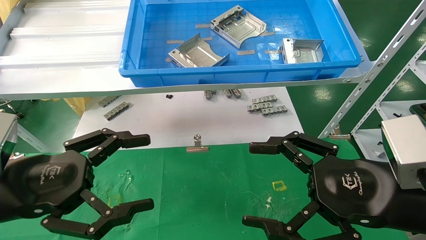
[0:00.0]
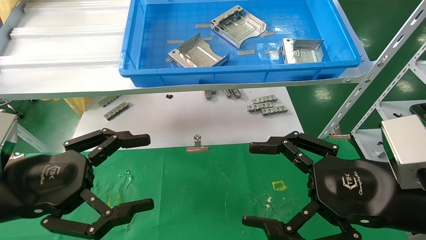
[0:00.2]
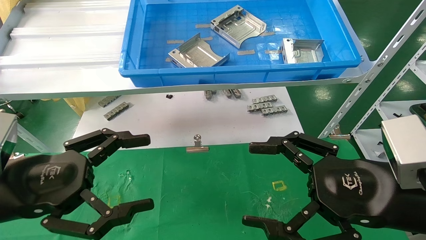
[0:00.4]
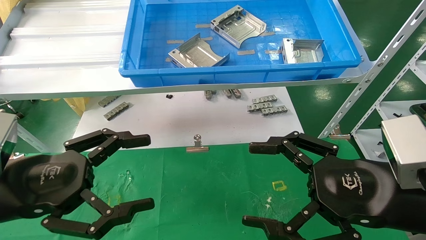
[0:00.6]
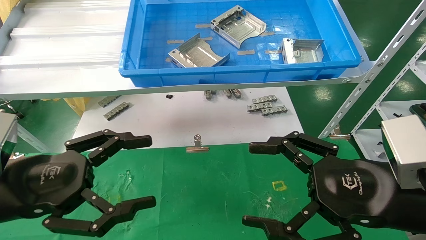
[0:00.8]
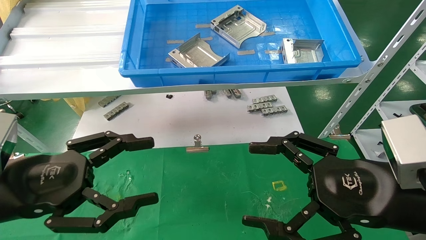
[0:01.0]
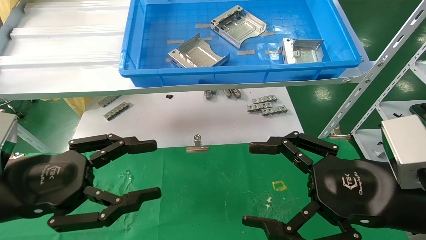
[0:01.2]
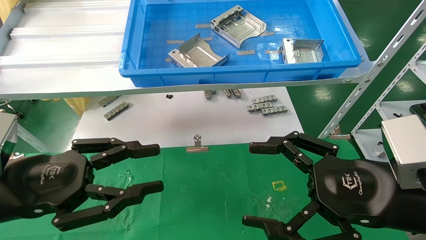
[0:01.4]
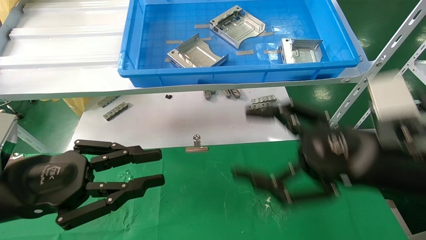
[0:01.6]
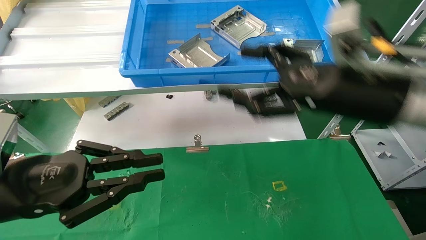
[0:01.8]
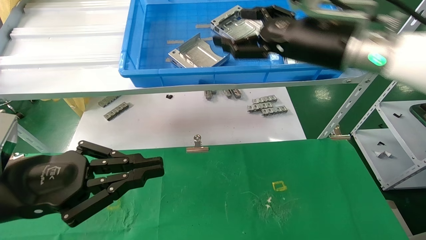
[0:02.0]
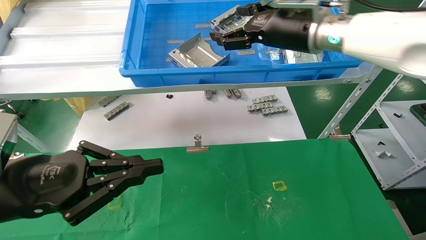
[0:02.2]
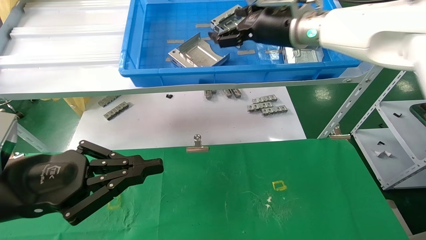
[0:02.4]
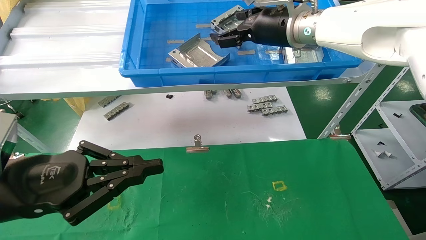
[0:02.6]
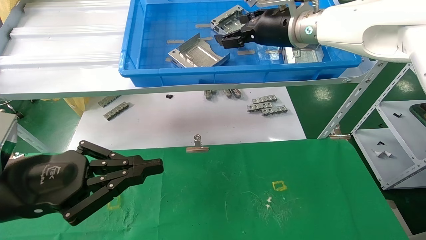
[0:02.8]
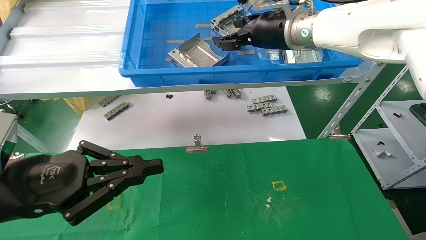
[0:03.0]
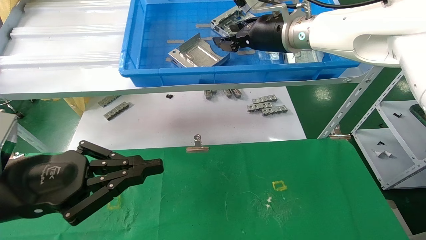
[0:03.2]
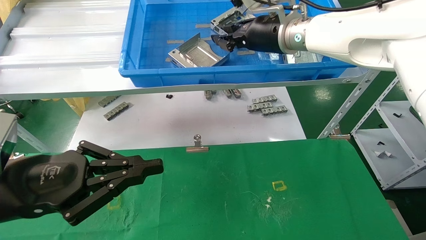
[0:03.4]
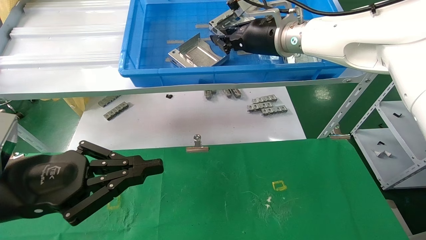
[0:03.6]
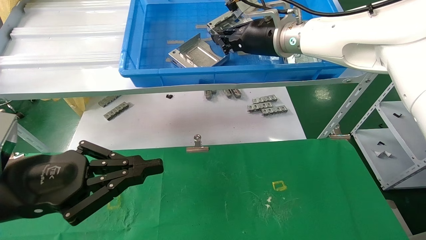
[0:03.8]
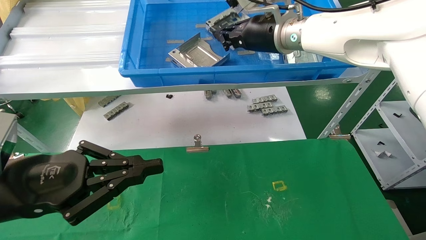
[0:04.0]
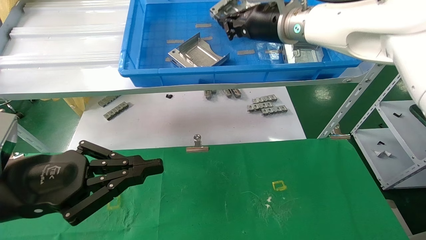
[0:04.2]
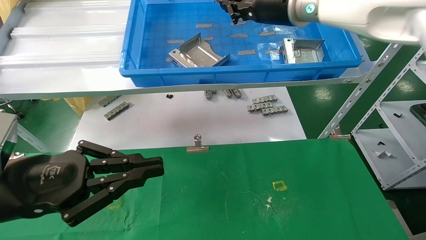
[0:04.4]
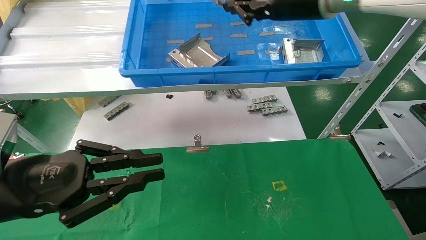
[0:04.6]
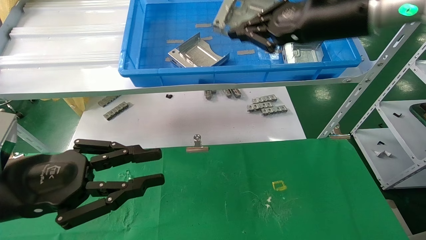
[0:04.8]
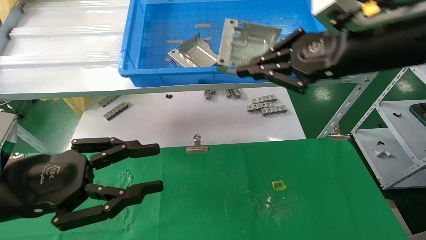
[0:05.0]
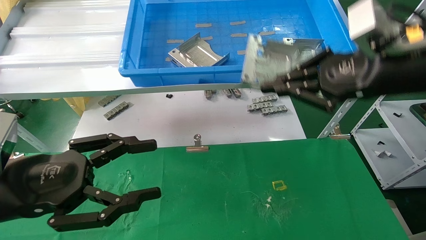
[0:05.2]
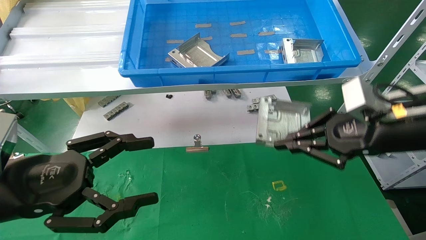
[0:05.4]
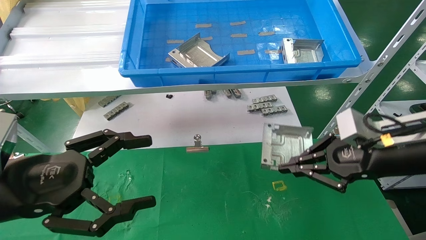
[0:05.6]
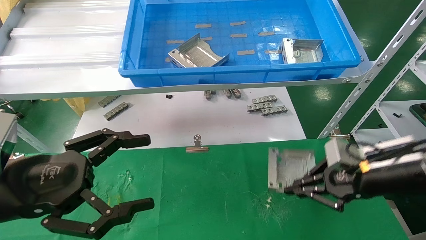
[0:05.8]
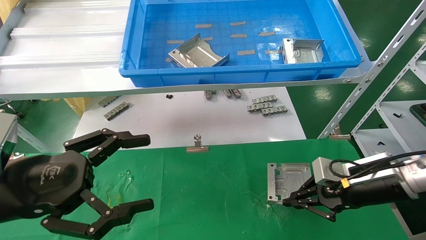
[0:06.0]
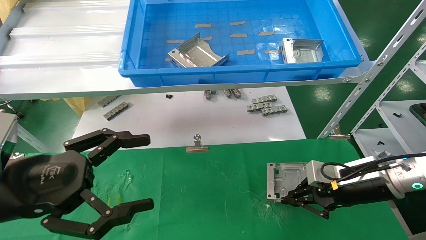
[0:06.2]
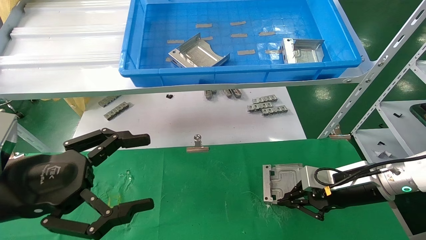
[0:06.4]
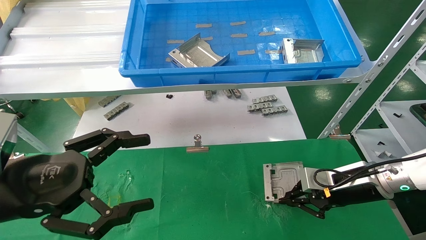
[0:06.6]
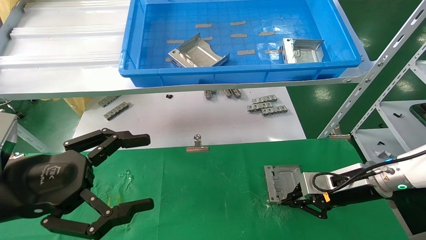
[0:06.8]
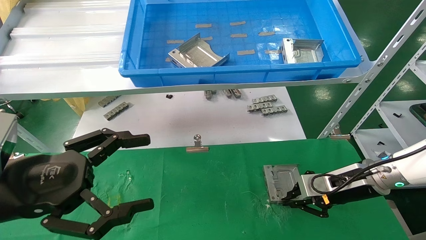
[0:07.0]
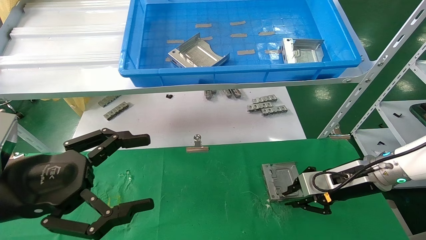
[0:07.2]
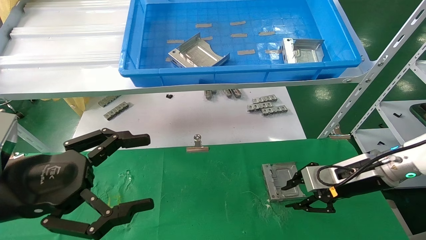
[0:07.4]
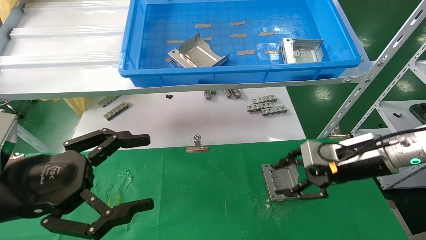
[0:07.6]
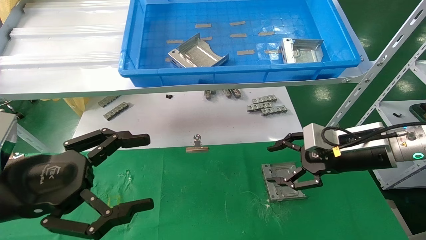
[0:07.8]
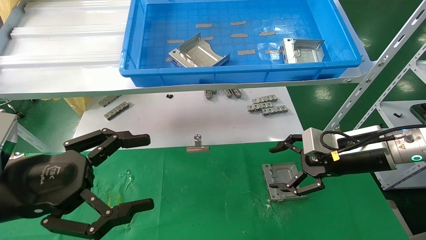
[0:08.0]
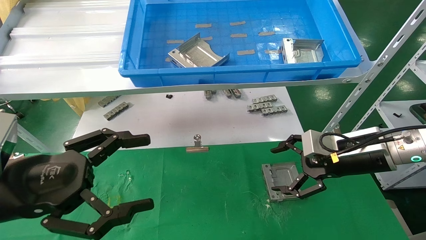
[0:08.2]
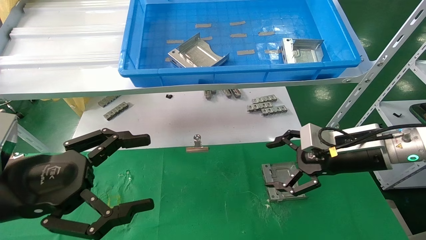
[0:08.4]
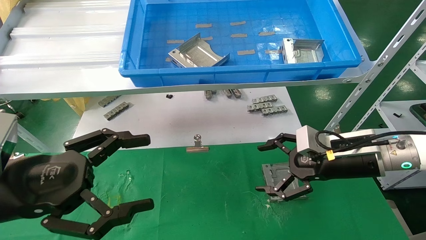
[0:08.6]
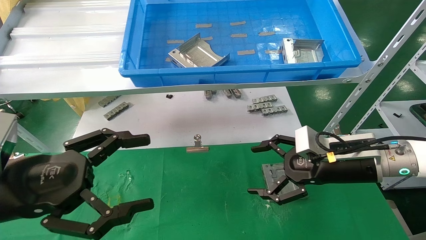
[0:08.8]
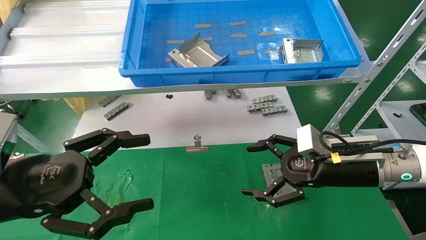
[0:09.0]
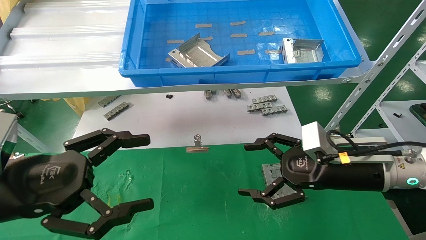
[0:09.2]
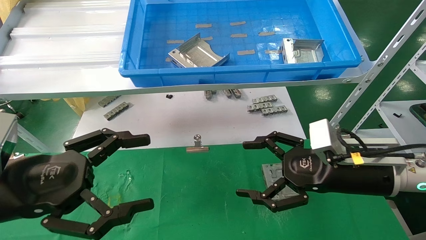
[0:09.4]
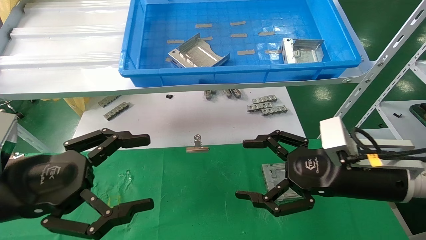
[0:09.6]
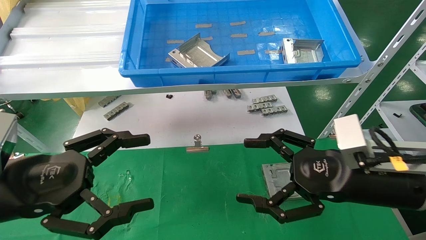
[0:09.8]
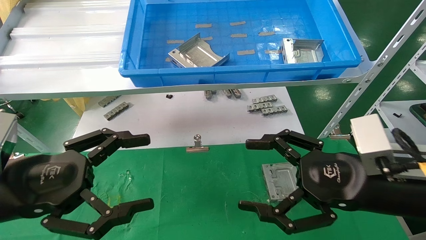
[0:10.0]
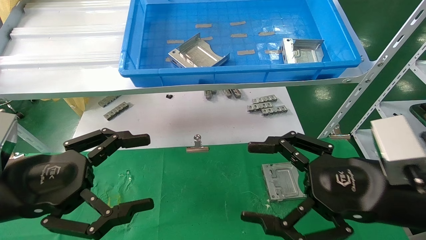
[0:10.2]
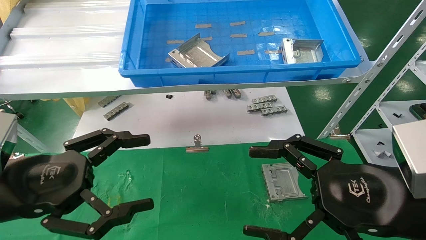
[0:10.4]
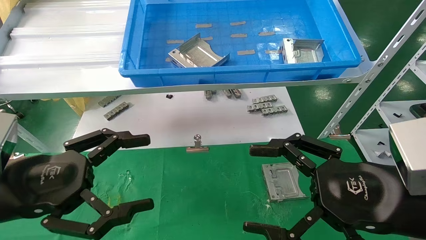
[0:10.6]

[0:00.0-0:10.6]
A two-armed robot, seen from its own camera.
Task of the whole recording: use the mechanical arm to pick up the parts and place them on the table.
Step, 0:01.8 to 0:04.4: Pick up the hard drive bracket from the feeding area.
Step, 0:04.6 to 0:07.6: Place the hard drive bracket into the box.
0:00.0 to 0:01.6: The right gripper shifts by approximately 5 cm, while the left gripper closes its fingers.
0:01.6 to 0:03.0: The left gripper closes up. The right gripper shifts approximately 25 cm forward, upward and to the left.
0:03.0 to 0:04.6: The right gripper heads backward, covering approximately 5 cm, and closes.
0:04.6 to 0:06.0: The right gripper moves downward and to the right, some 30 cm, while the left gripper opens.
0:06.0 to 0:07.6: The right gripper opens its fingers.
0:07.6 to 0:09.0: The right gripper shifts by approximately 5 cm, and opens its fingers.
0:09.0 to 0:10.6: The right gripper moves backward, about 15 cm.

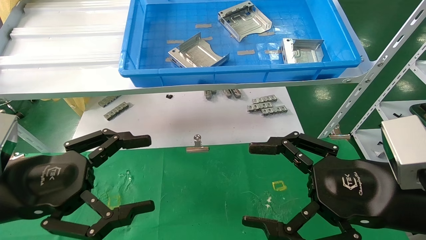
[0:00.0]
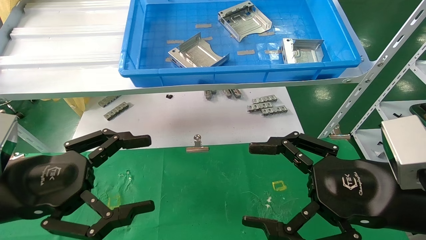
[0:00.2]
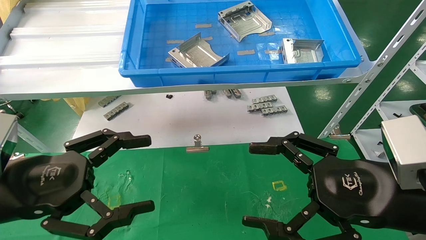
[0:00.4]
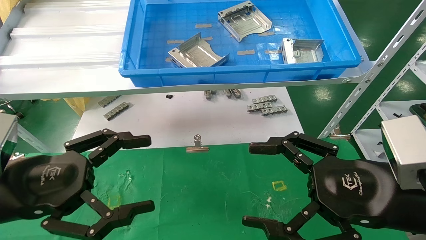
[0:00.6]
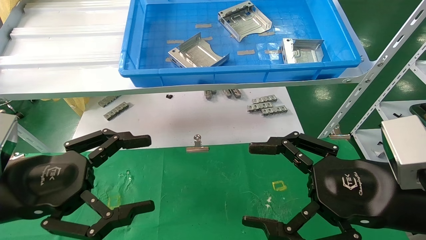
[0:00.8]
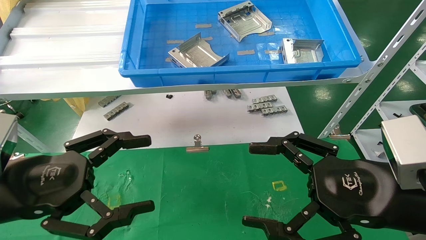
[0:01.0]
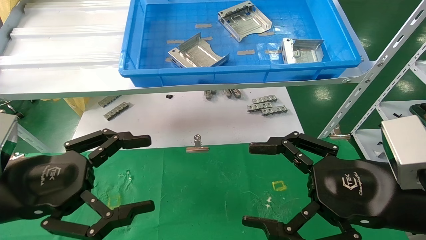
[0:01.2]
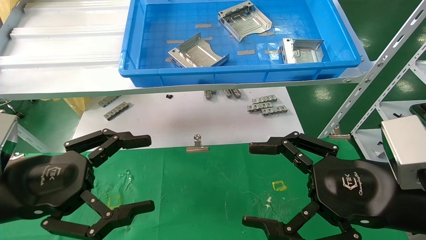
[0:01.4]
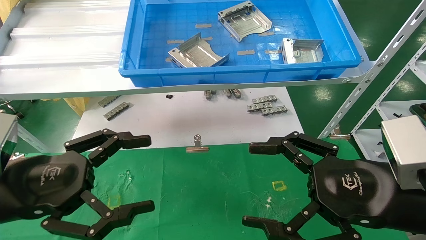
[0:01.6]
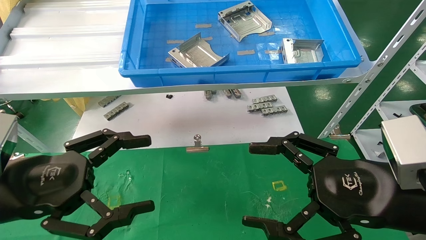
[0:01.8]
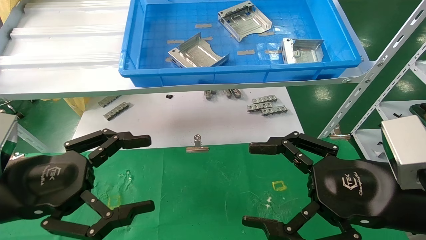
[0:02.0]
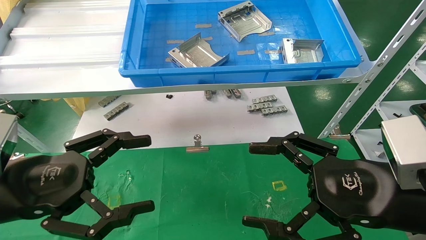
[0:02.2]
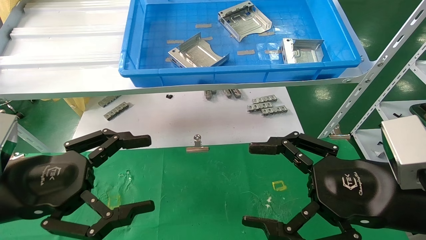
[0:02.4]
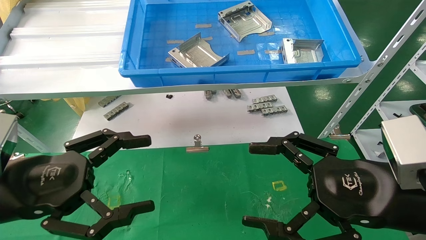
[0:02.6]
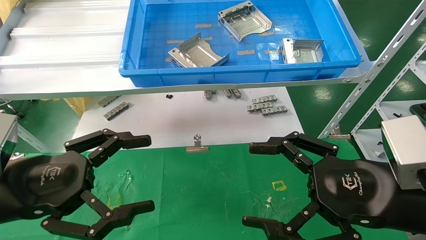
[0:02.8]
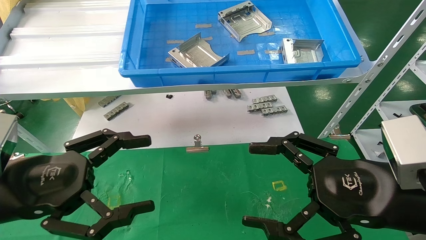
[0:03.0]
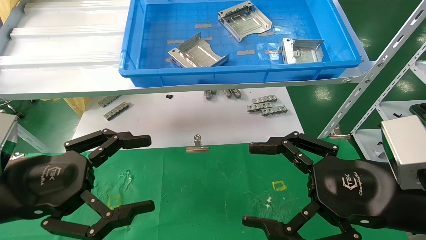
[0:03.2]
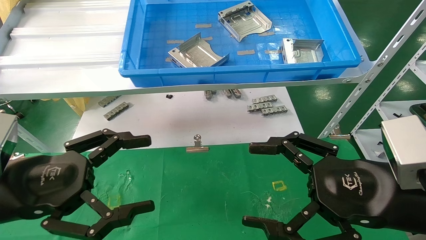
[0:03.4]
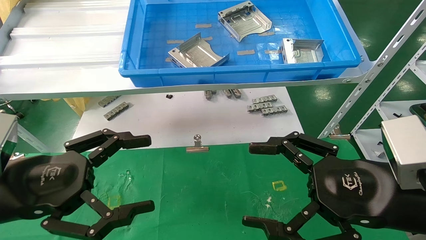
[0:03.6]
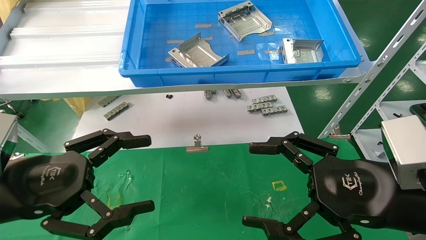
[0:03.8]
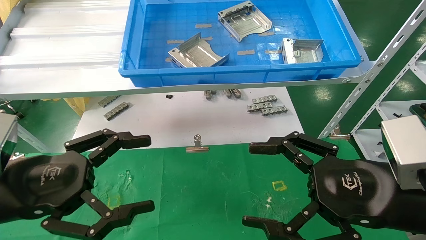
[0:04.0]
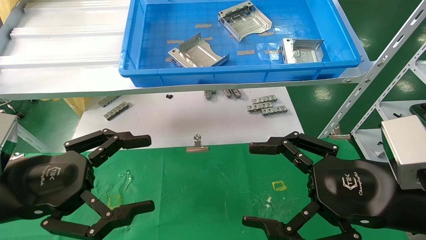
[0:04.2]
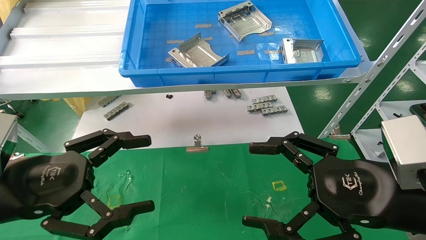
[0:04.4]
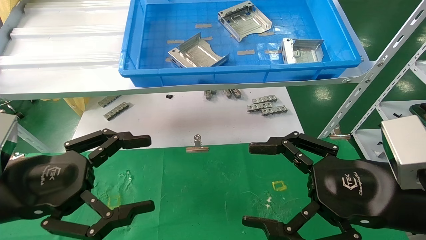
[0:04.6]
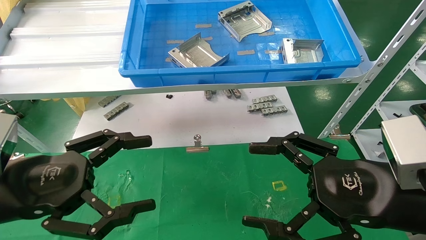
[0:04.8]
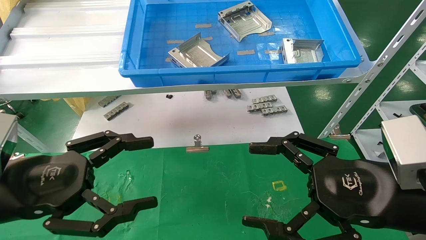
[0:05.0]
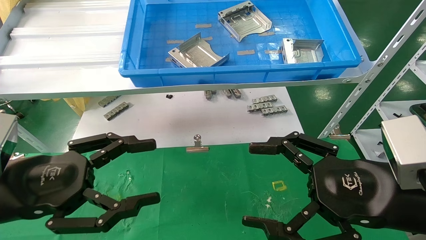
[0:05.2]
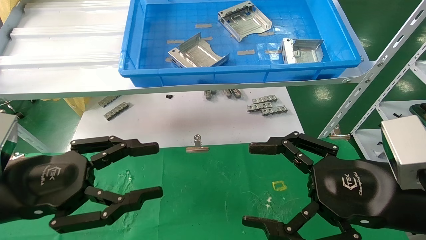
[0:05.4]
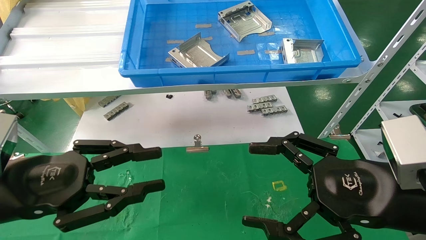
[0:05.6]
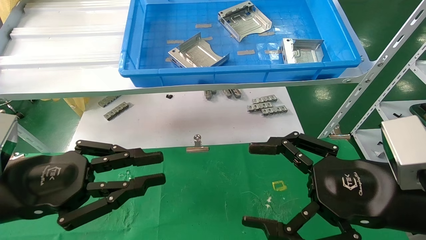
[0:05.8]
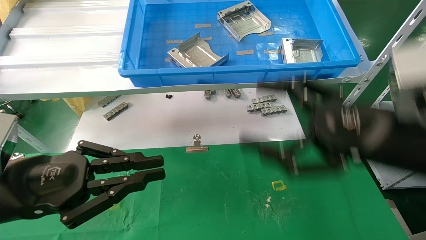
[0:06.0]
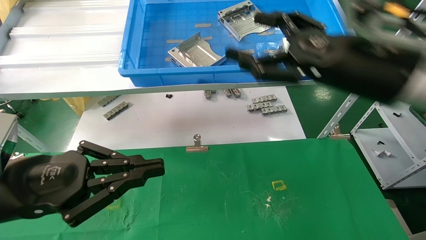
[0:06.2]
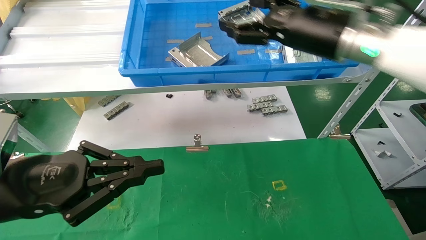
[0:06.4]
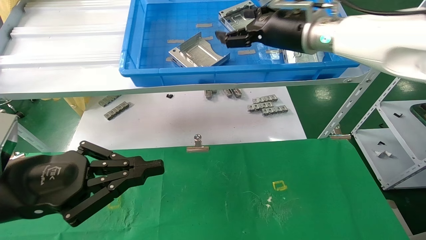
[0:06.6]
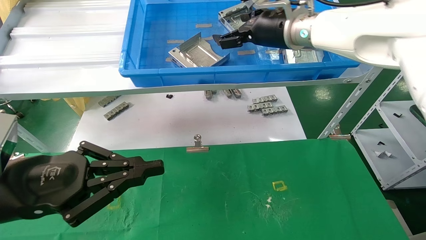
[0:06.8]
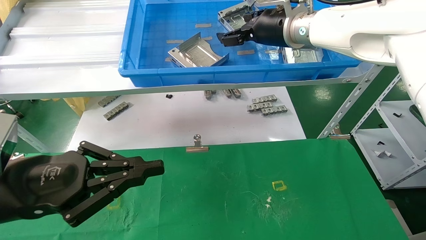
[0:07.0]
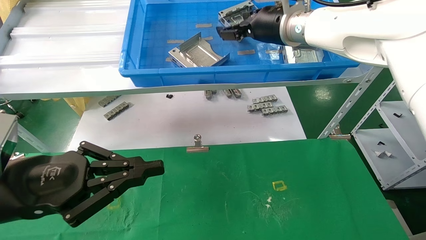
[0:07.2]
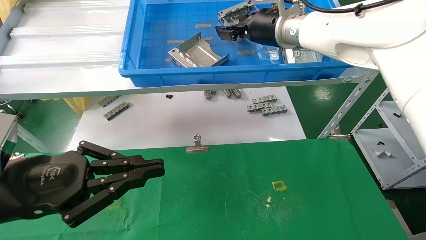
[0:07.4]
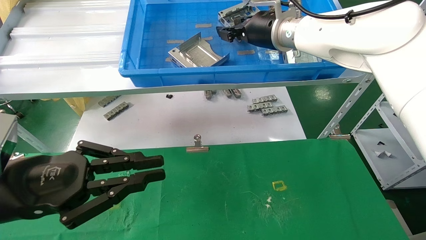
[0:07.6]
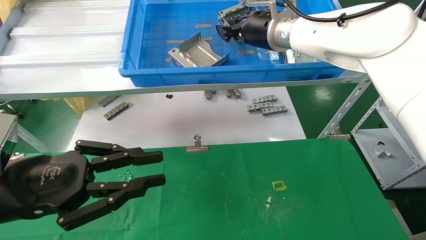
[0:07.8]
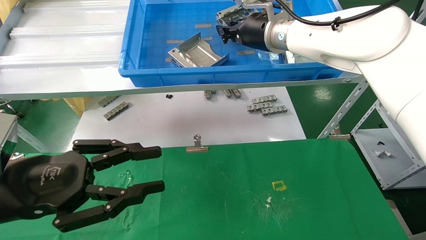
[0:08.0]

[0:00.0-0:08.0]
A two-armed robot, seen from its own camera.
Task of the whole recording: use the mechanical arm to pick up the parts and place them on the table.
0:00.0 to 0:04.8: The two grippers keep their place.
0:04.8 to 0:06.4: The left gripper closes, while the right gripper goes roughly 25 cm forward and upward.
0:06.4 to 0:08.0: The right gripper heads to the left and forward, covering approximately 10 cm, and closes up.
